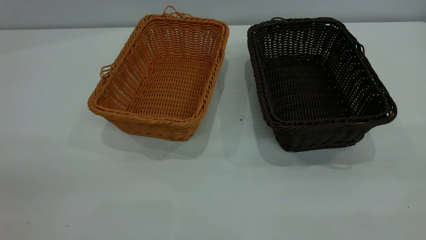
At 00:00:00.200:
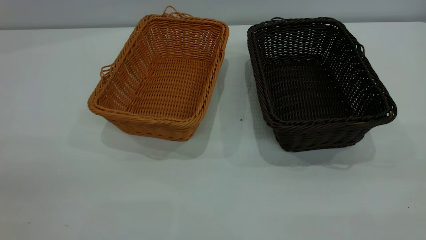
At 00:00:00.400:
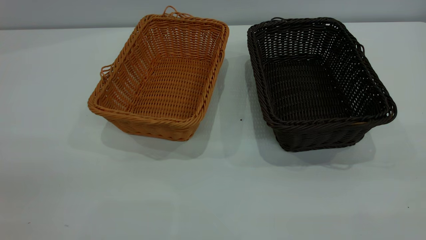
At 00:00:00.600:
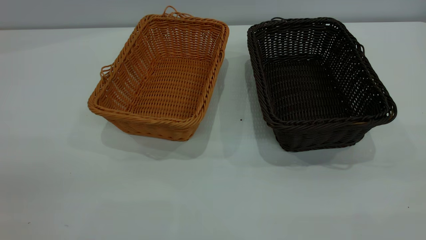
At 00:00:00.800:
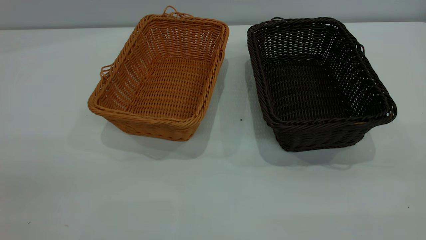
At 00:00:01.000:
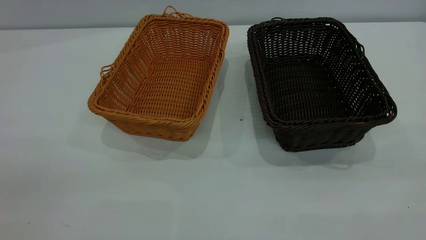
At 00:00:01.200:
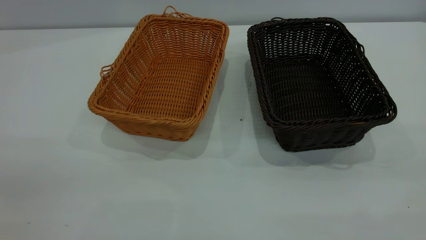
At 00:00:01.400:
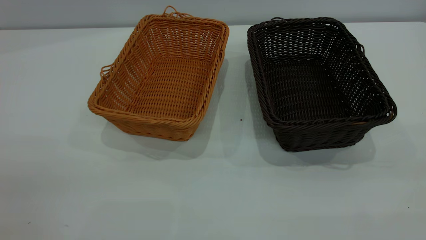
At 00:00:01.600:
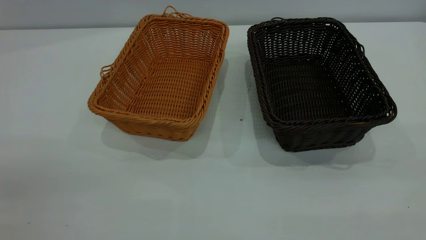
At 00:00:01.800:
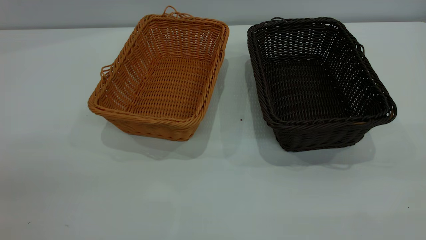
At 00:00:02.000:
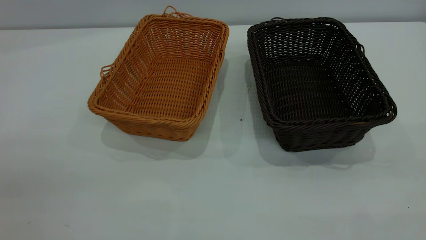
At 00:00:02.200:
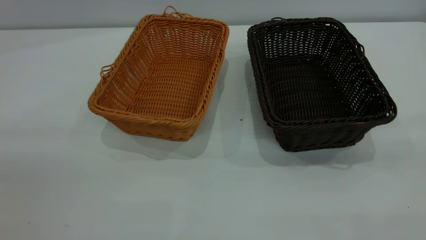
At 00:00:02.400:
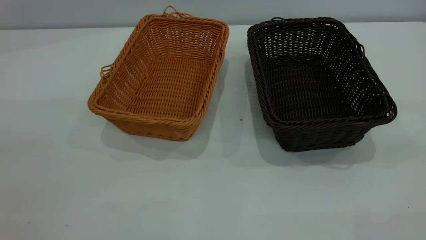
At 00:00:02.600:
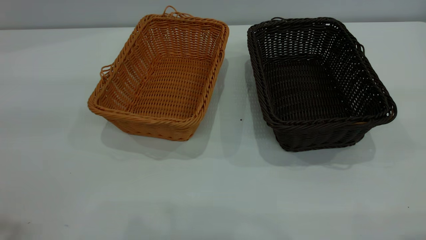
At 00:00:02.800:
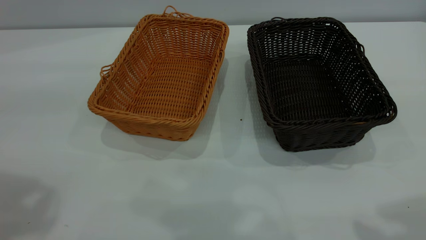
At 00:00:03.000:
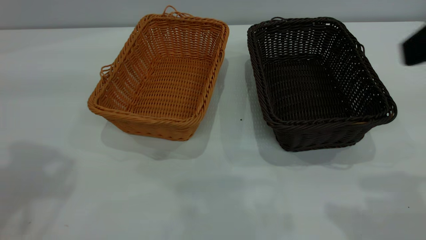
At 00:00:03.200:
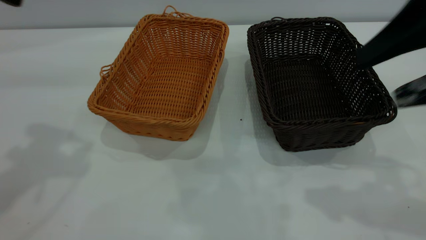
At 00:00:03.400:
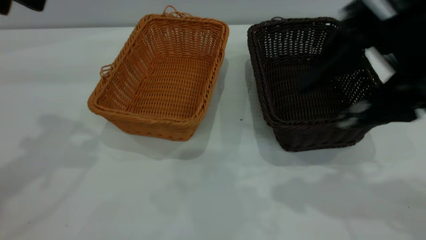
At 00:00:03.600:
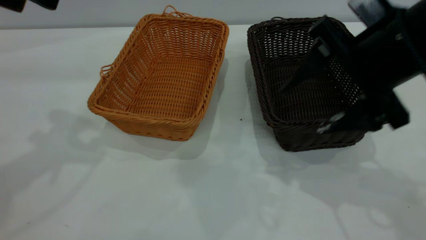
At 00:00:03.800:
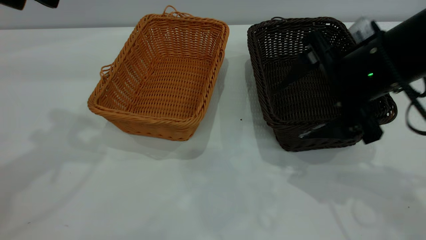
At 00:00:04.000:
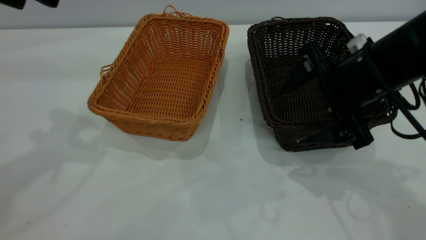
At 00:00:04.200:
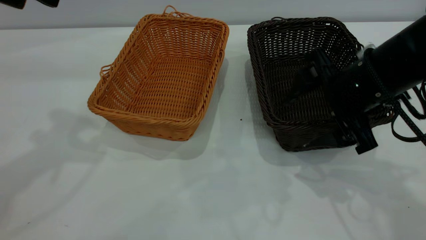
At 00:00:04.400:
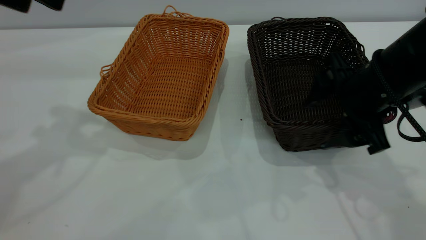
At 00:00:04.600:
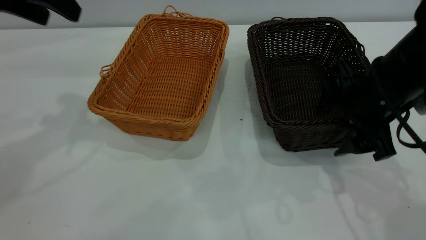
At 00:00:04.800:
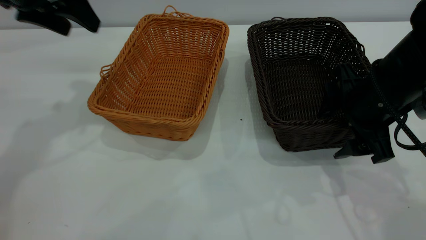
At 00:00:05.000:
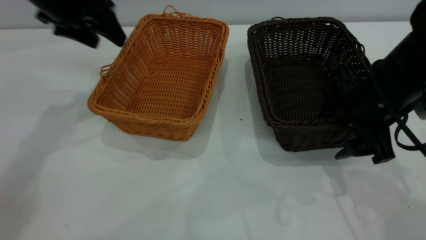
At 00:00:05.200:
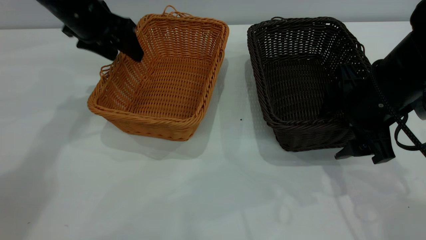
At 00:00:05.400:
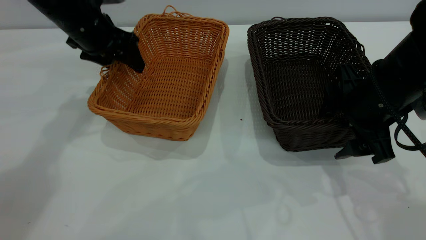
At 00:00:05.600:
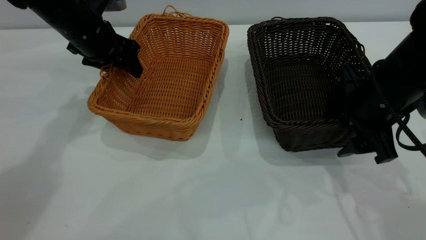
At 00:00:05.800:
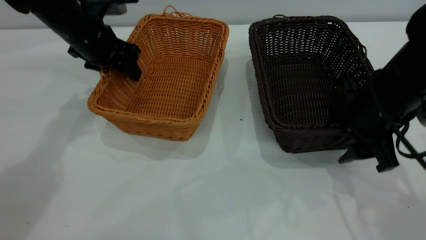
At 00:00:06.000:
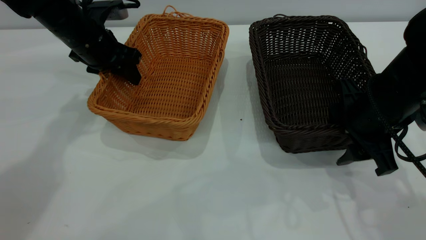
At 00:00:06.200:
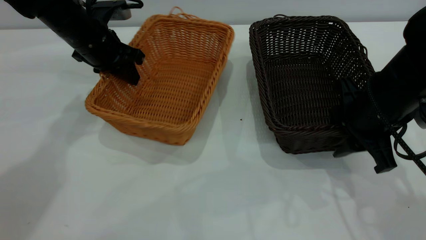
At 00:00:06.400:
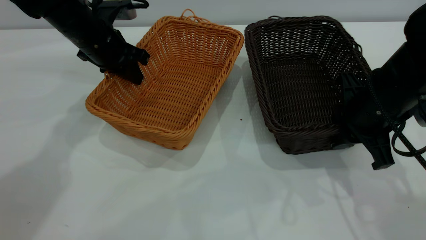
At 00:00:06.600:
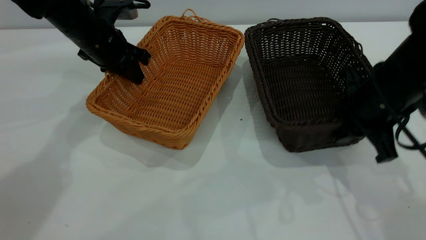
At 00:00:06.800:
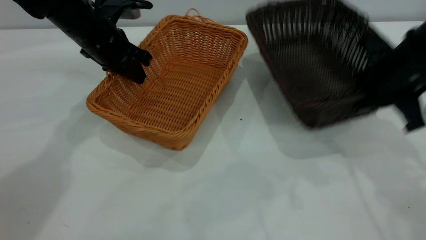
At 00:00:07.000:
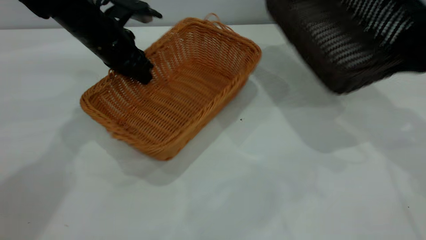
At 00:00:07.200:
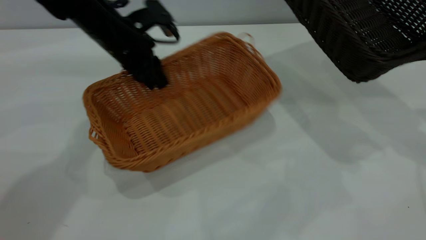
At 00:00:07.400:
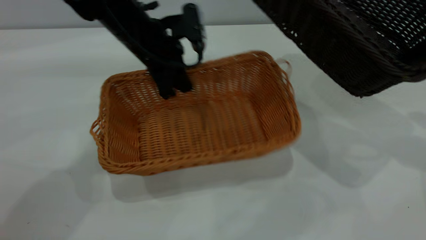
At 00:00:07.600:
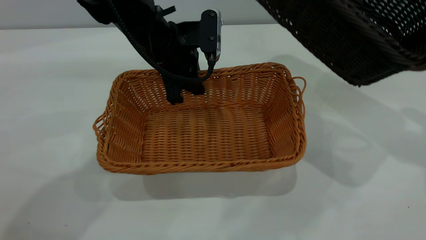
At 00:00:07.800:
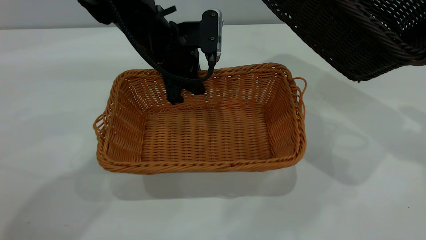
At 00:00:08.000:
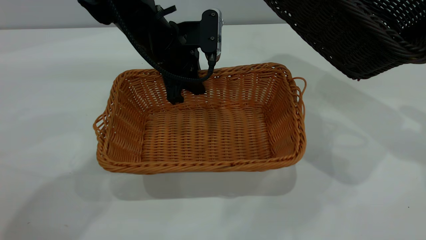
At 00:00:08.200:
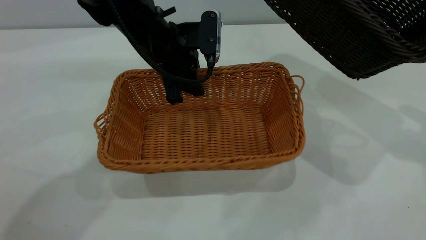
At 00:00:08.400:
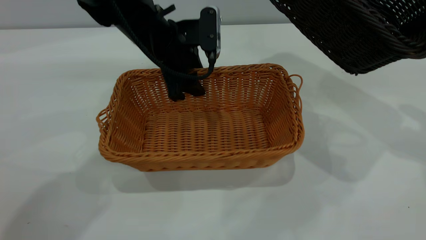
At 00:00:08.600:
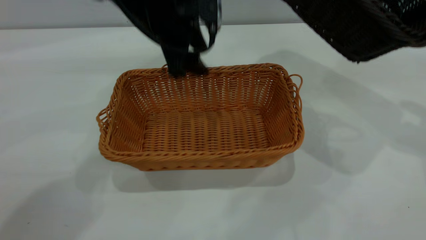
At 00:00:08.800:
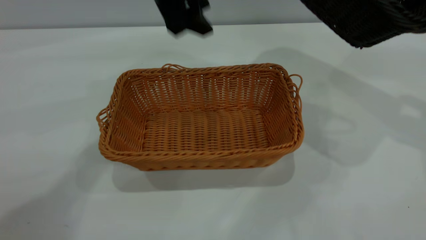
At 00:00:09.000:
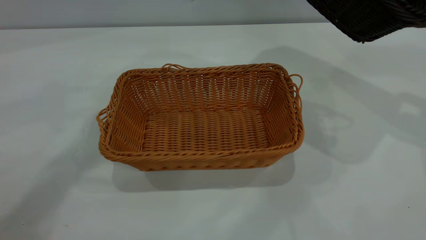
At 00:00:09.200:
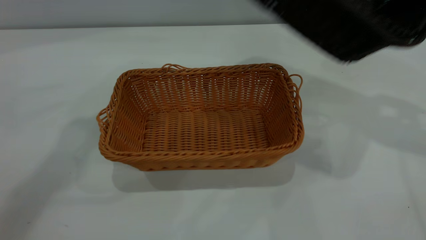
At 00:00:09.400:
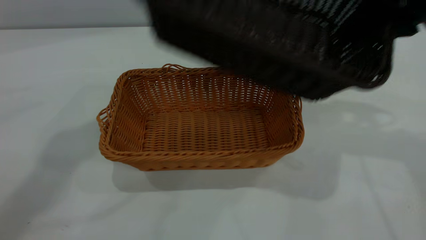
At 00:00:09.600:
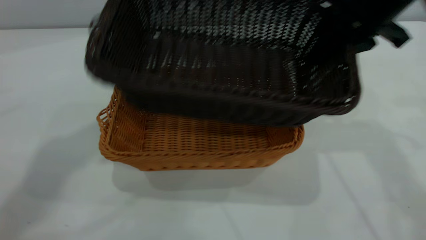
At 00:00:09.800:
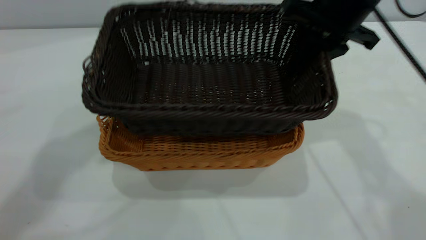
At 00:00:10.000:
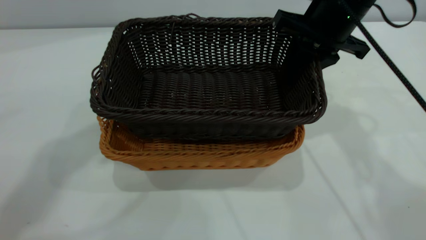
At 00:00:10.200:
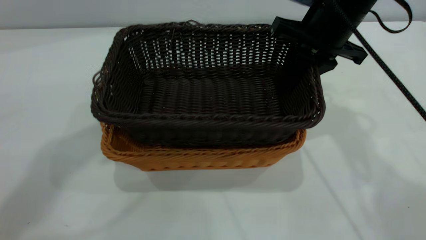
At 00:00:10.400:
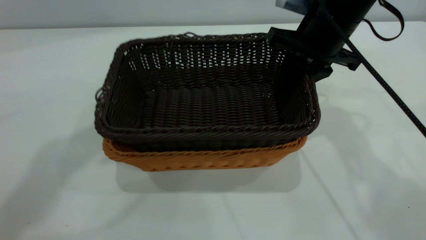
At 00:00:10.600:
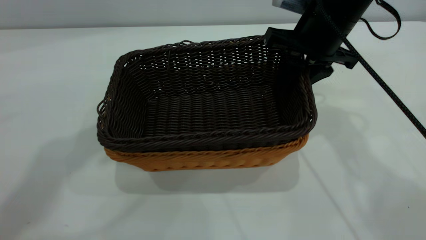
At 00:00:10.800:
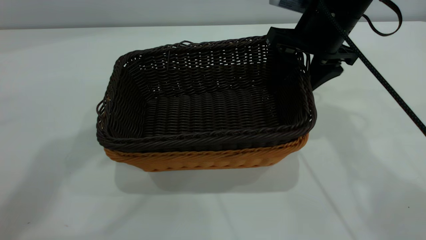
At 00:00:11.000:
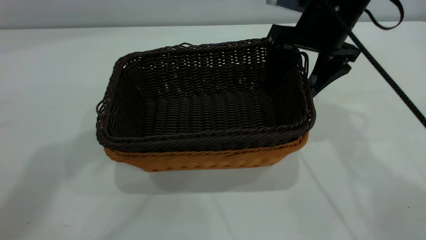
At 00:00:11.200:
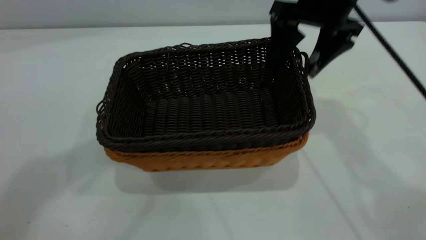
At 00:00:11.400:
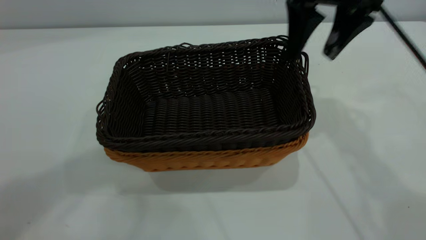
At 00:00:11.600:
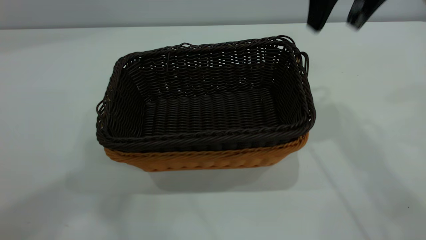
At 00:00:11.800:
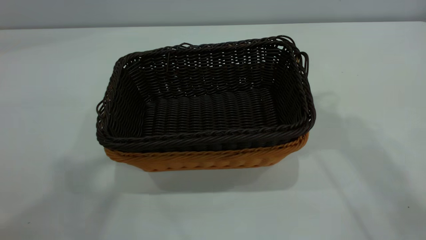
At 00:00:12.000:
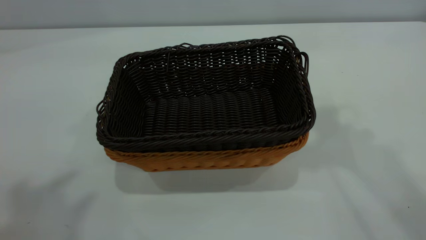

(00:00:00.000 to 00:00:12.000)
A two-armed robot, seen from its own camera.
Task of the whole recording: the left gripper grasp the brown basket and place it in the center of the table, the right gripper grasp the black basket and place it inside the brown one.
Step, 00:00:00.000 - 00:00:07.000: Pick up the light basket with the right gripper.
Step, 00:00:07.200 - 00:00:08.600: Place the light-colored basket in the center.
Step, 00:00:08.800 - 00:00:11.400: Place the dark basket on top of the light basket.
00:00:00.000 - 00:00:01.600: Both grippers stay put.
00:00:01.600 - 00:00:03.000: The right gripper travels forward by about 20 cm, and opens up.
00:00:03.000 - 00:00:04.400: The left gripper is displaced forward by some 10 cm. The right gripper travels downward and forward by about 20 cm.
00:00:04.400 - 00:00:06.000: The left gripper goes some 20 cm downward and forward, and closes its fingers. The right gripper closes.
00:00:06.000 - 00:00:07.600: The left gripper heads to the right, covering some 15 cm, and closes. Meanwhile the right gripper travels upward and to the right by about 20 cm, and closes up.
00:00:07.600 - 00:00:09.000: The left gripper is displaced upward by about 20 cm, and opens its fingers.
00:00:09.000 - 00:00:10.400: The right gripper heads to the left and downward, covering roughly 20 cm. Meanwhile the left gripper travels upward and backward by some 15 cm.
00:00:10.400 - 00:00:12.000: The left gripper heads backward, upward and to the left, covering some 25 cm. Meanwhile the right gripper is displaced upward by approximately 30 cm, and opens its fingers.

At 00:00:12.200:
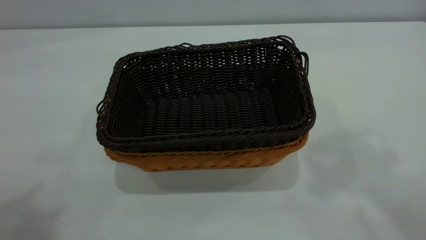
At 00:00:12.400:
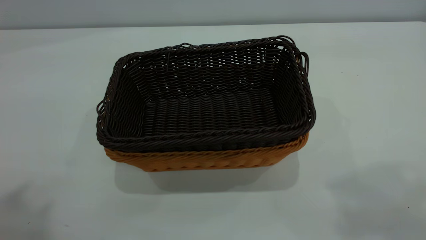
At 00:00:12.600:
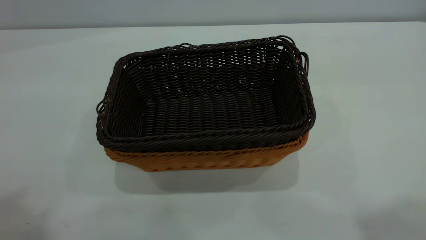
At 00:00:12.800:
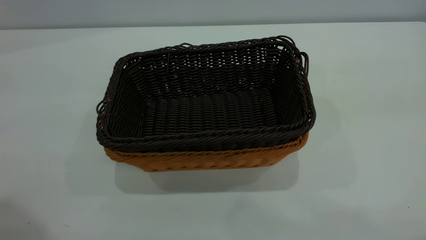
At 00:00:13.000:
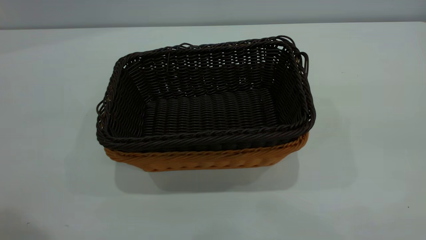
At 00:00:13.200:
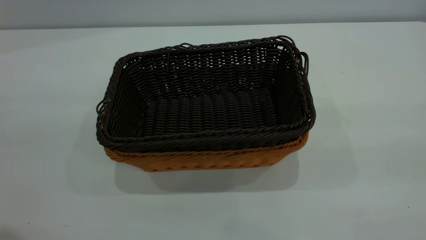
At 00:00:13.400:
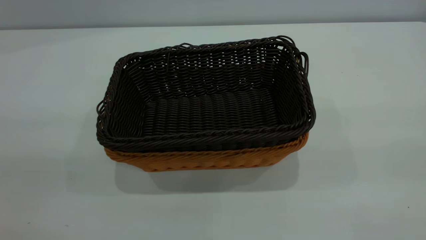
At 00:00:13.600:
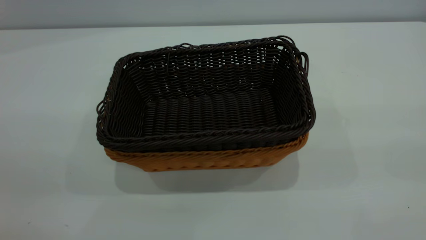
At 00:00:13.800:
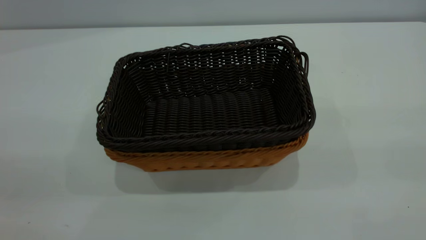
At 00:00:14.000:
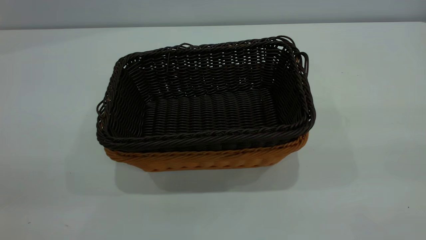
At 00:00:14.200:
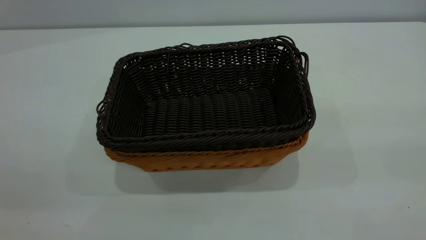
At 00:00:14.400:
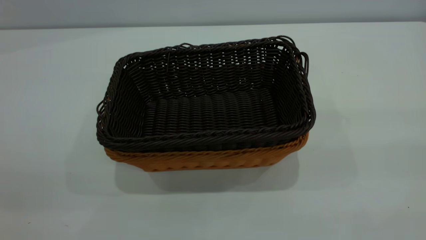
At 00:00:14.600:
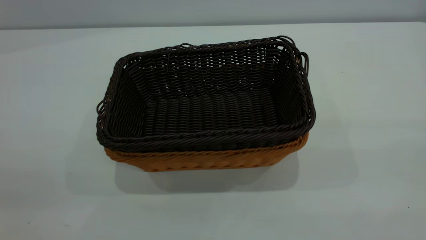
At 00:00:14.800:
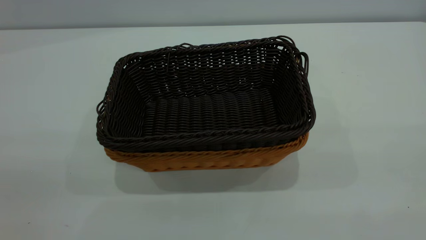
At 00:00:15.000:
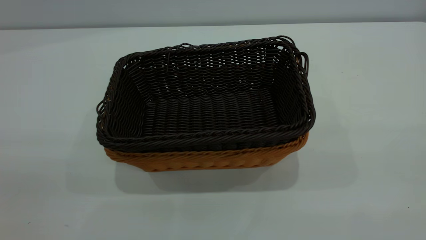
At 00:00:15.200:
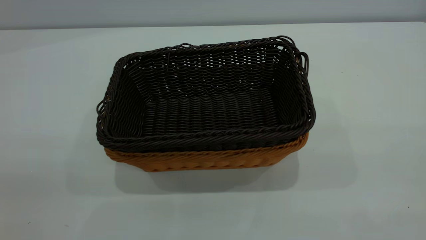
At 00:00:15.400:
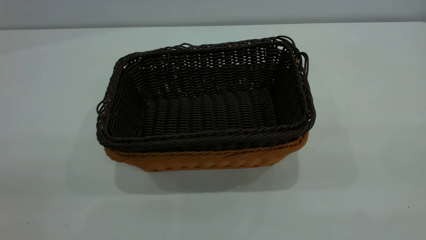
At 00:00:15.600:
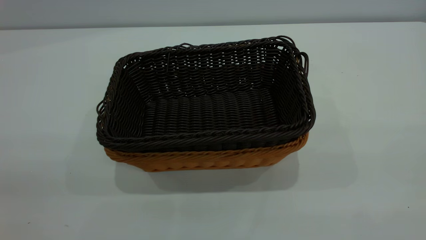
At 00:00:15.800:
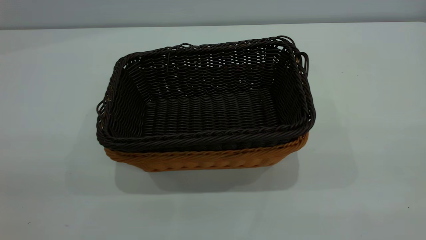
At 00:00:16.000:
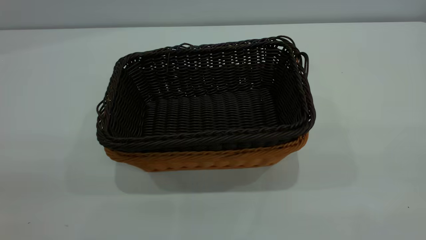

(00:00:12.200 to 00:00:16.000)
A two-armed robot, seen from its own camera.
Task of the whole recording: the left gripper grasp the brown basket and place it in the center of the table, the right gripper grasp the black basket and place it inside the brown one.
00:00:14.800 - 00:00:16.000: Both grippers stay about where they are.
